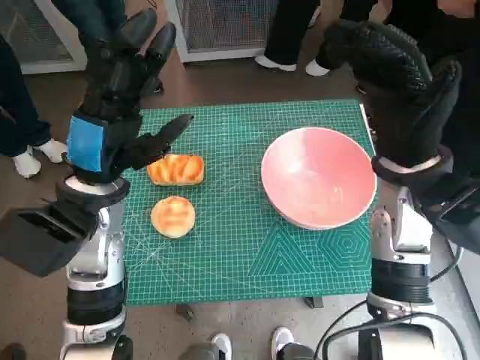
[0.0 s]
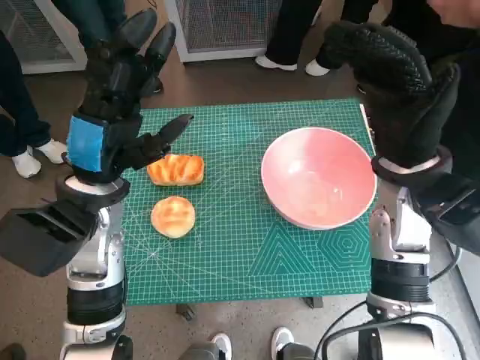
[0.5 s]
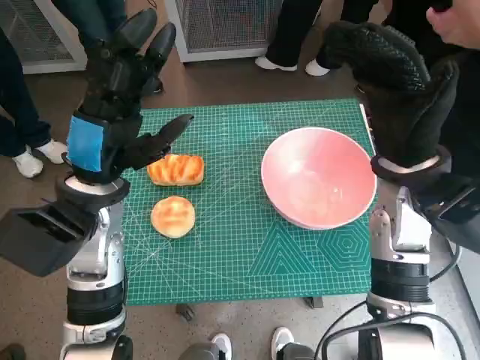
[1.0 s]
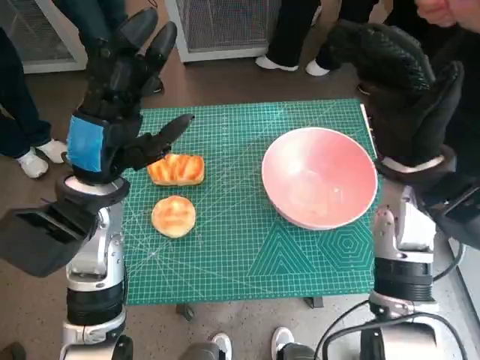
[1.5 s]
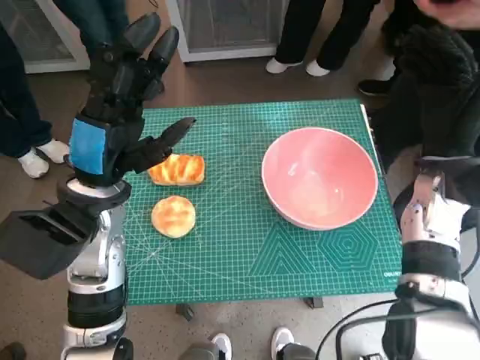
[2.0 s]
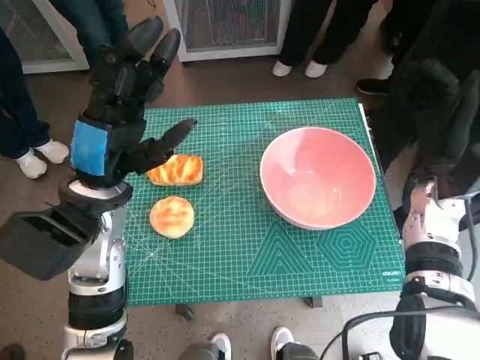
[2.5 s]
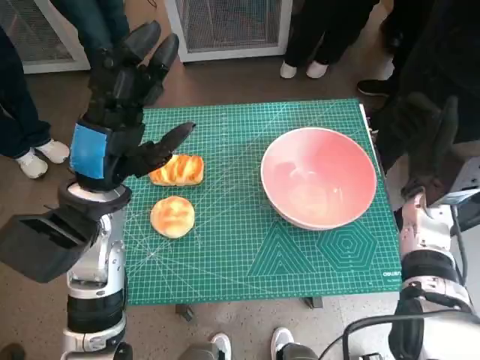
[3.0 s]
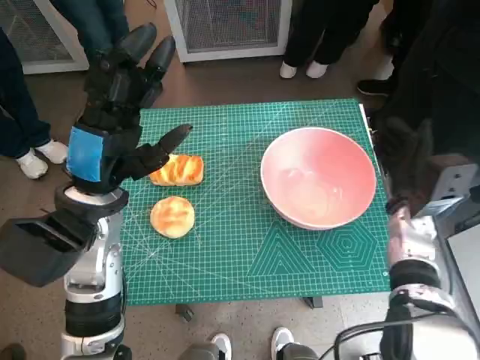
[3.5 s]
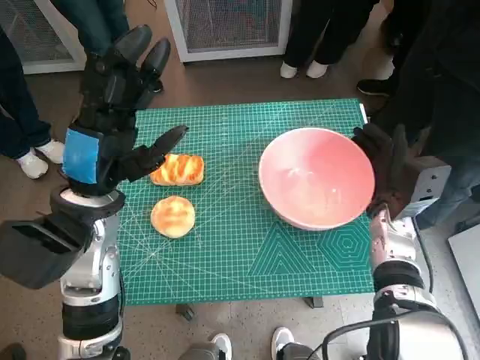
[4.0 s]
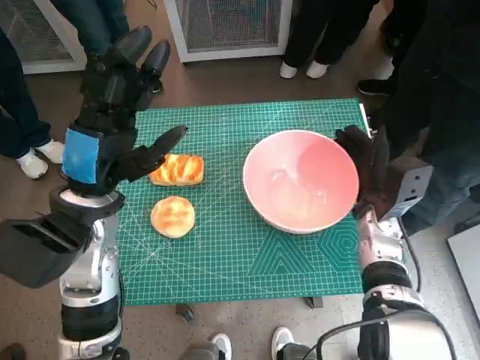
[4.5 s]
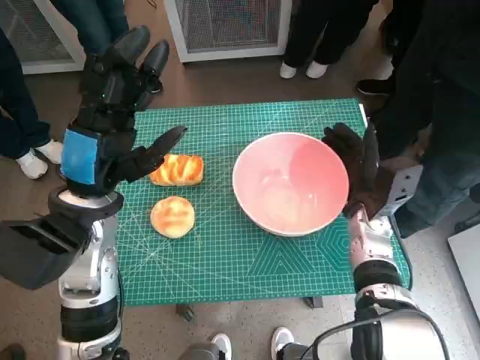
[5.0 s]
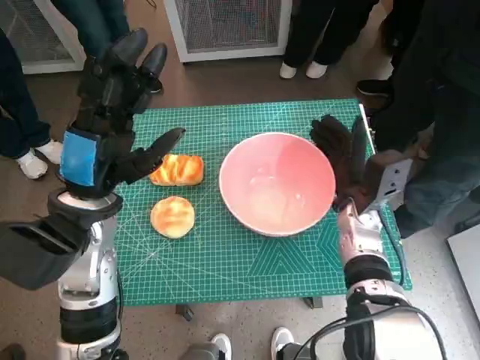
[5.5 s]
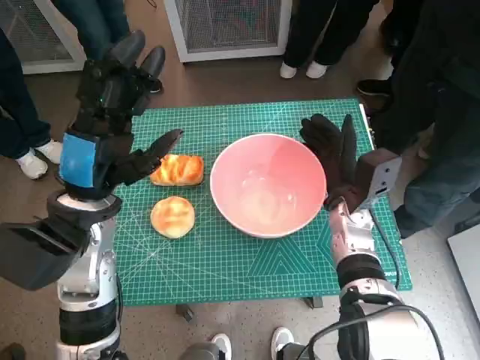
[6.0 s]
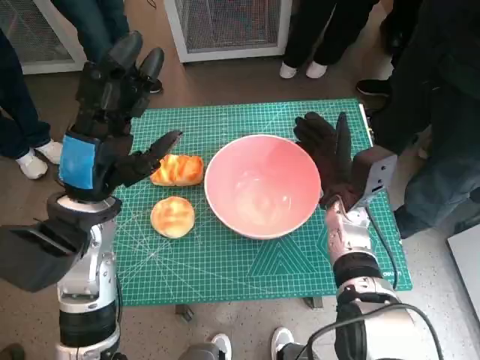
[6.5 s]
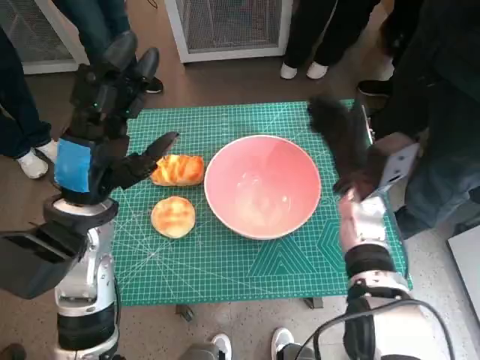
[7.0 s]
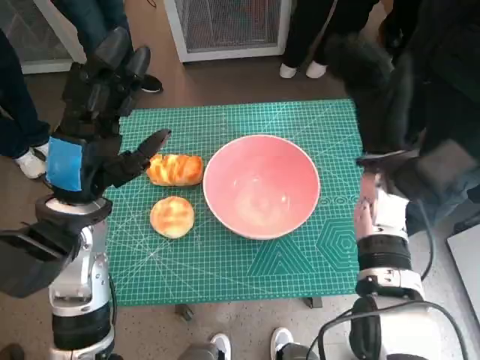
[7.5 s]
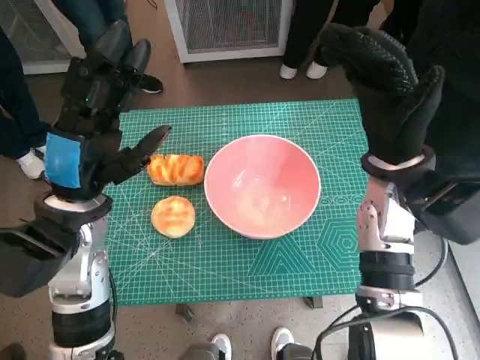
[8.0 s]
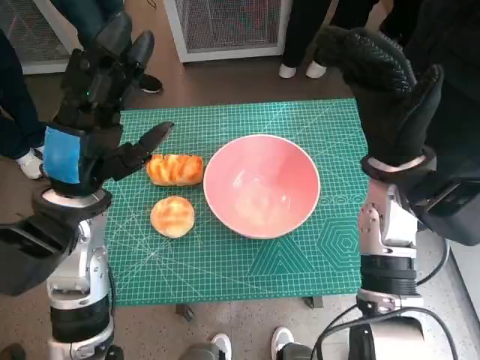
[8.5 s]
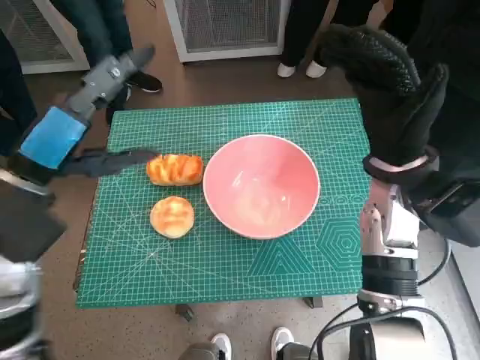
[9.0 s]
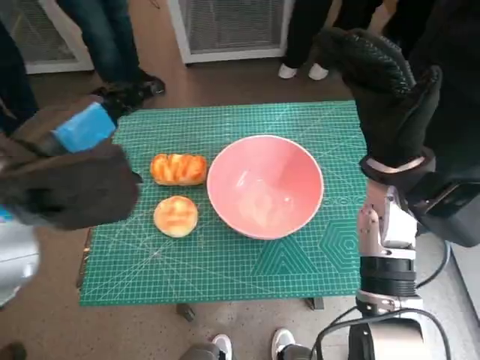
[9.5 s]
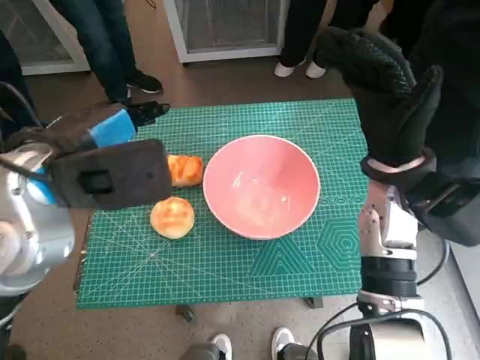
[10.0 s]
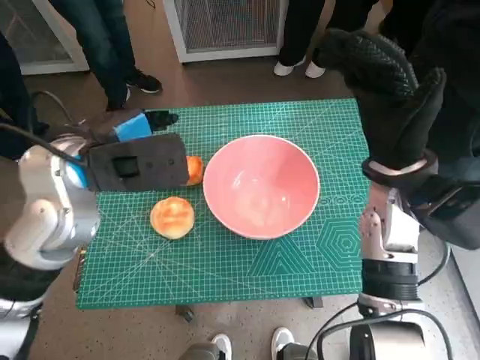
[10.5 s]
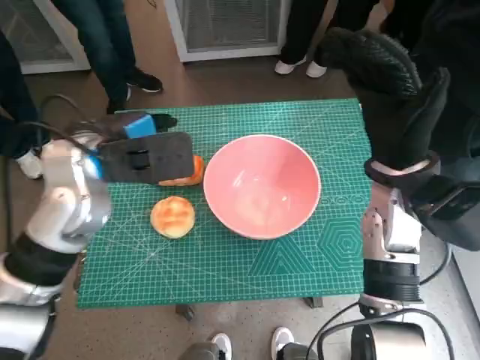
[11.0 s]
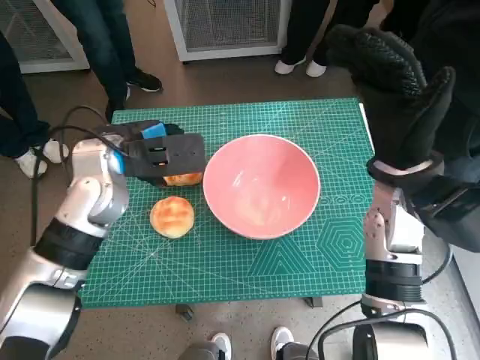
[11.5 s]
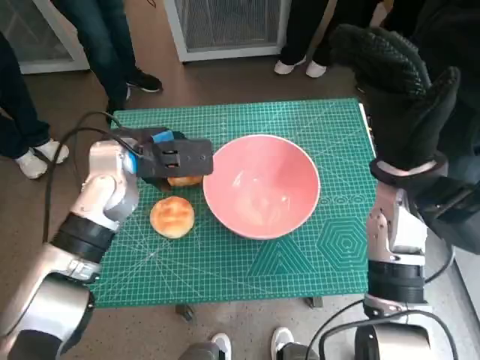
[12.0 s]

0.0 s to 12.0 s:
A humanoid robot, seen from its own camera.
Task of the whole recording: Push the bowl into the center of the table and put the bread into the bowl.
Step, 0.0 to 6.5 s: Move the pink bowl to the center of table with right hand.
2.0 to 4.0 s: The right hand moves downward, about 10 cm.
4.0 to 6.0 s: The right hand travels to the left by some 5 cm.
6.0 to 8.0 s: The right hand is displaced upward by about 10 cm.
8.0 to 10.0 s: The left hand heads upward, covering approximately 10 cm.
10.0 to 12.0 s: The left hand travels downward and forward by some 15 cm.

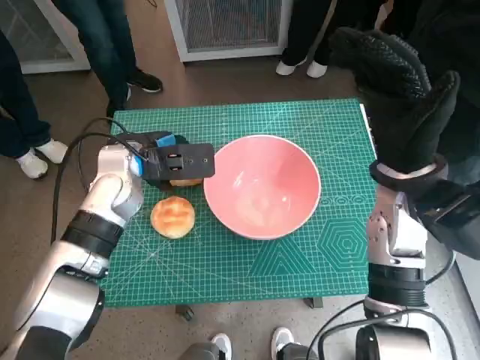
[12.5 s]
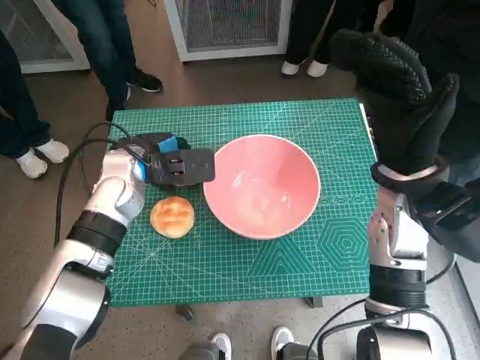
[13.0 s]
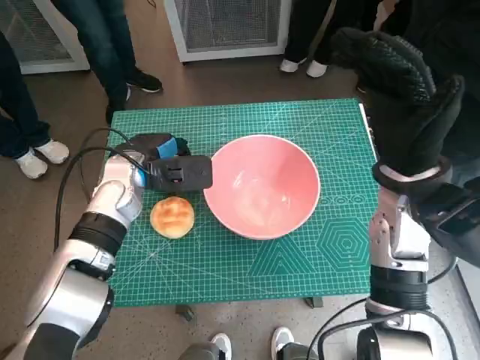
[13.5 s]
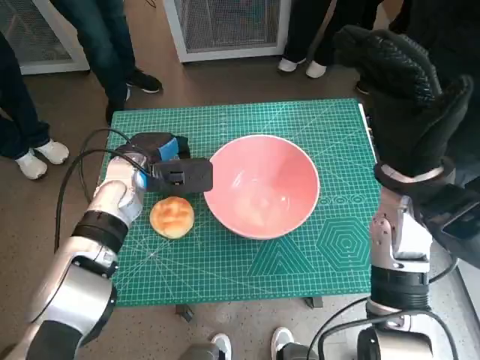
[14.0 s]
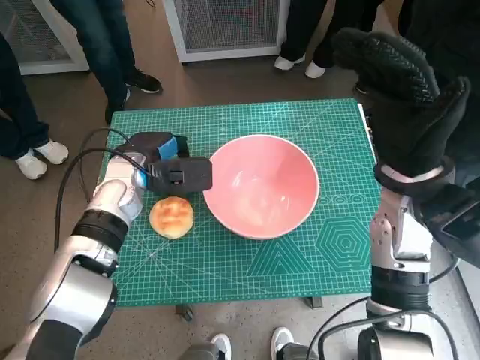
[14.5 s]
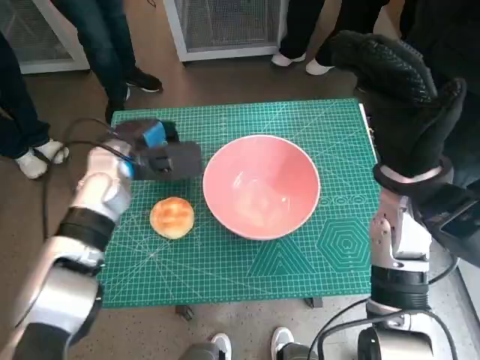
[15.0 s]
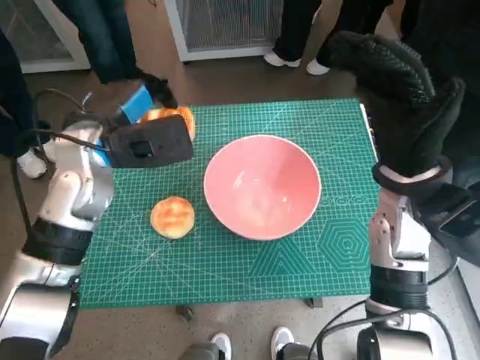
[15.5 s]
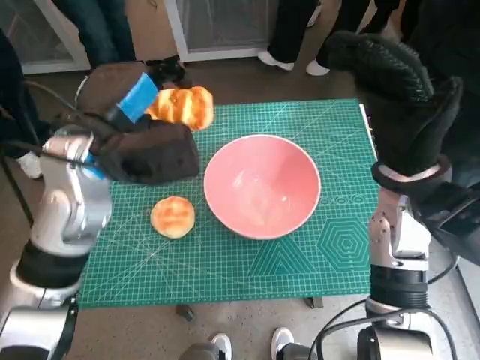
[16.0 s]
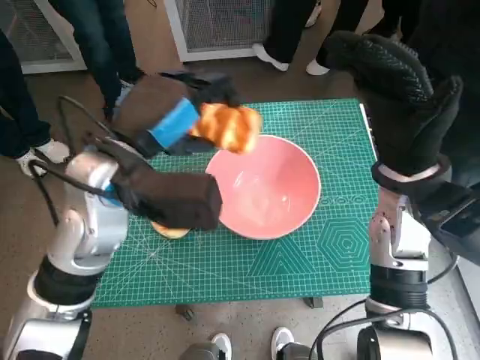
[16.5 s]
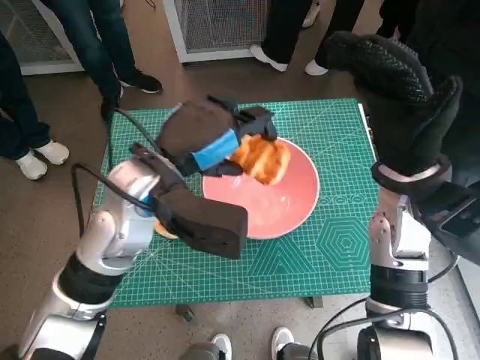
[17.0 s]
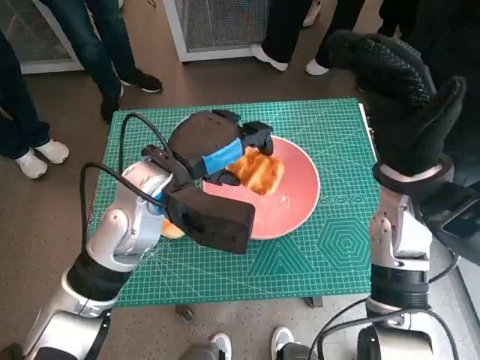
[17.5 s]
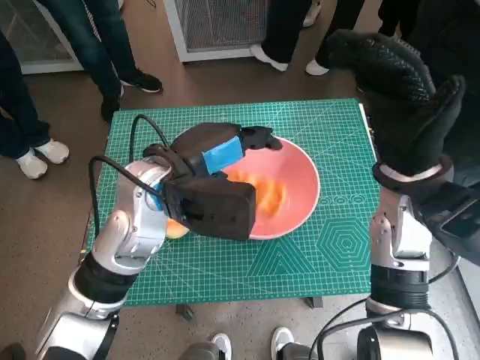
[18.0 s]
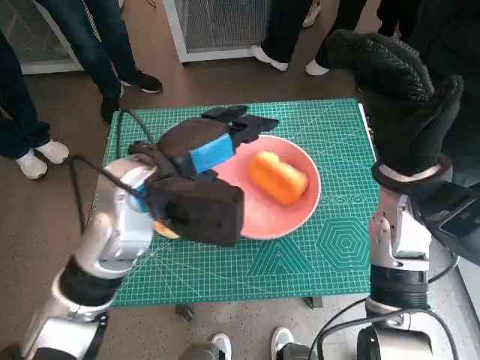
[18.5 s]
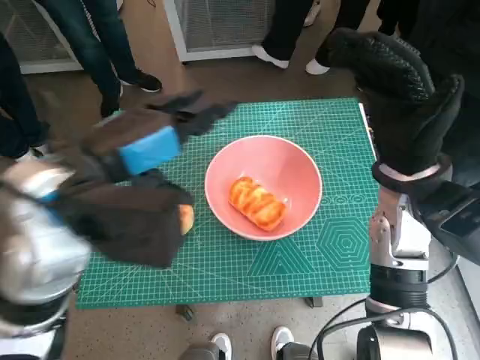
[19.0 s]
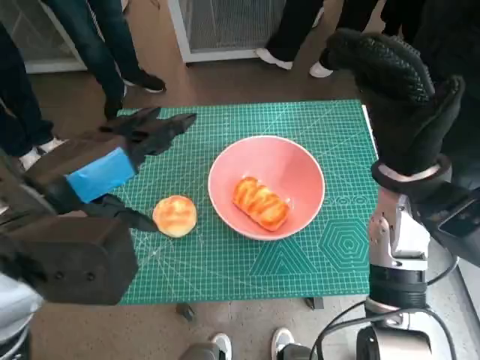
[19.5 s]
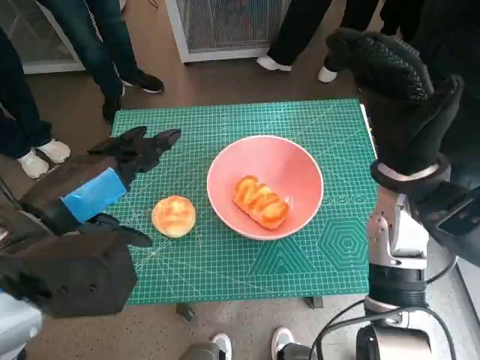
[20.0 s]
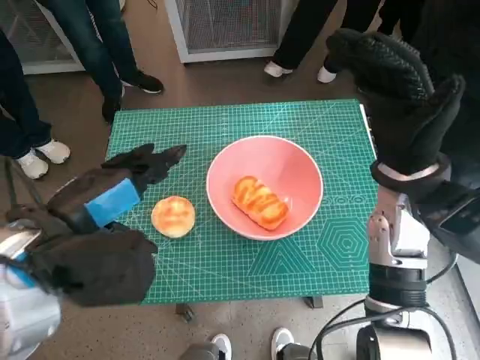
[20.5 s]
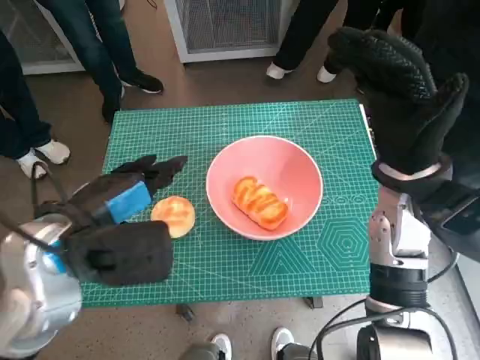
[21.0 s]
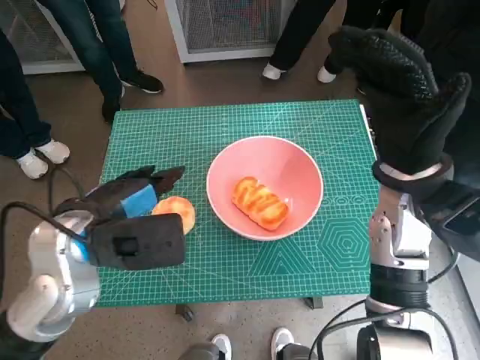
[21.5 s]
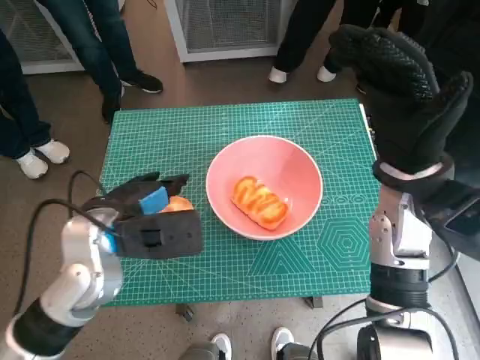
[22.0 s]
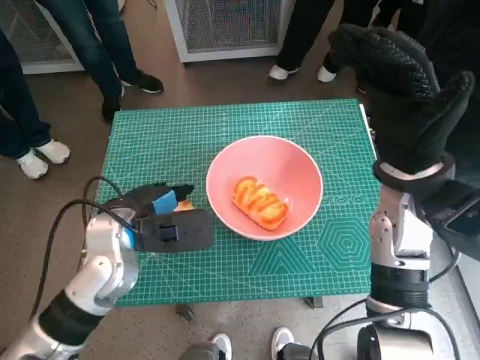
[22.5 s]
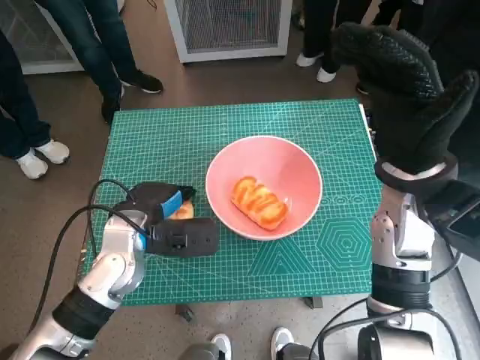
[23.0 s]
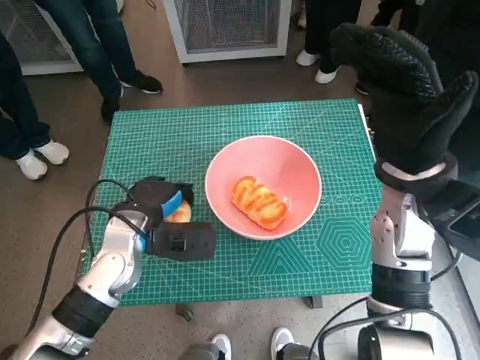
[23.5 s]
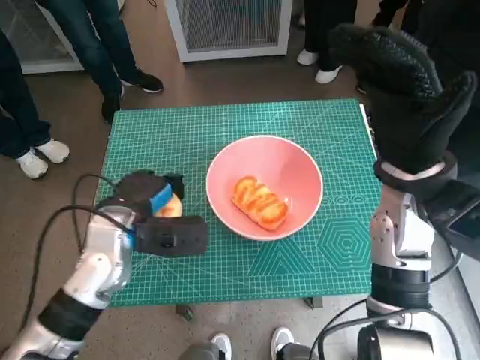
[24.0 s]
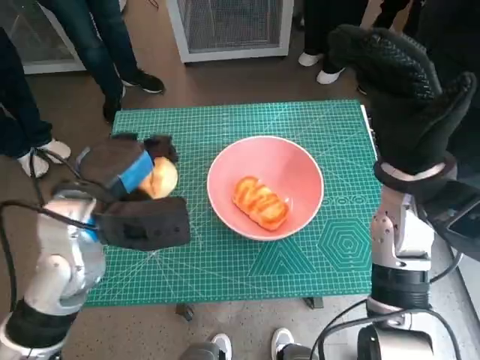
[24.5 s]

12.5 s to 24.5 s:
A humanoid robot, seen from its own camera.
Task of the whole recording: Push the bowl into the center of the table and put the bread into the bowl.
Step, 14.0 to 18.0 s: Place the long bread in pink bowl with left hand.
Step, 18.5 to 23.0 s: Grasp the round bread with left hand.
12.5 to 14.5 s: The hands make only small movements.
14.5 to 16.5 s: The left hand is displaced upward and backward by some 15 cm.
18.5 to 20.5 s: The left hand goes roughly 10 cm backward and to the left.
20.5 to 22.5 s: The left hand shifts about 10 cm downward and forward.
22.5 to 24.5 s: The left hand travels upward by roughly 5 cm.

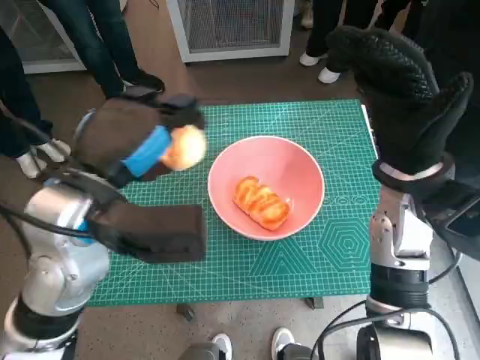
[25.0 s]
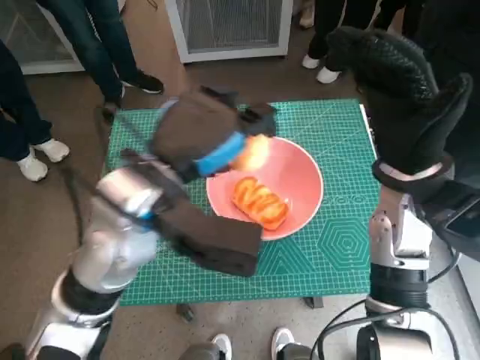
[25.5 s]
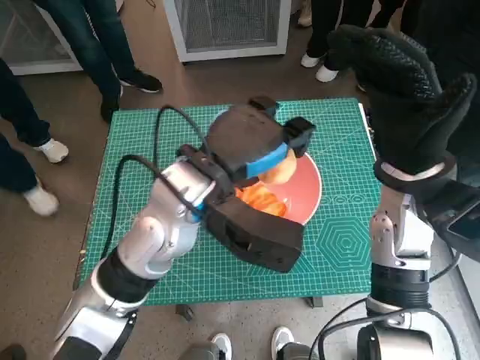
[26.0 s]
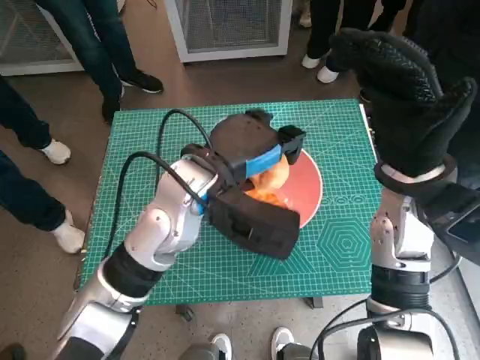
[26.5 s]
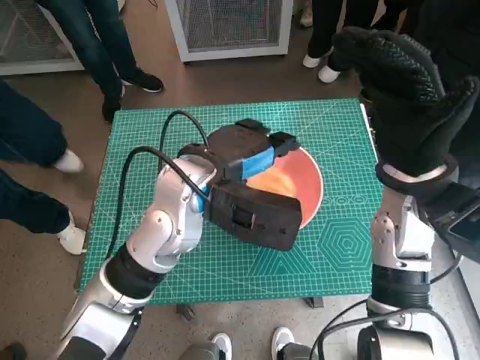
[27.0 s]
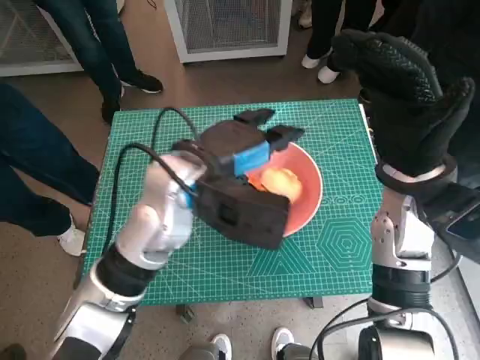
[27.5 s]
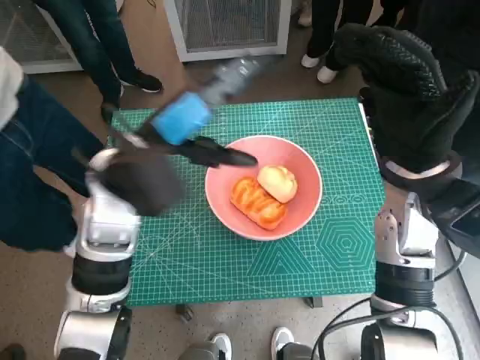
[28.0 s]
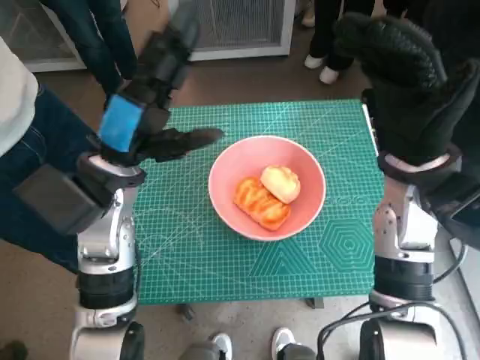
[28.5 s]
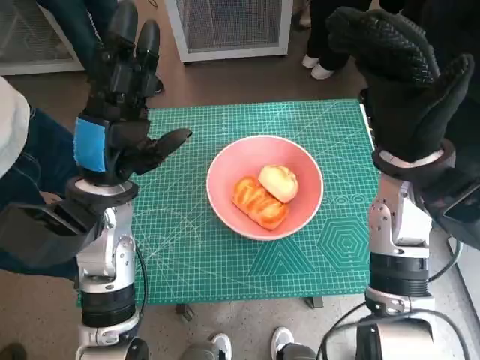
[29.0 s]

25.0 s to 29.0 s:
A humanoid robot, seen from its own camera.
Task of the whole recording: Push the bowl into the center of the table and put the bread into the bowl.
25.0 to 27.0 s: The left hand travels to the right and forward by roughly 10 cm.
27.0 to 29.0 s: The left hand is displaced to the left by approximately 10 cm.
